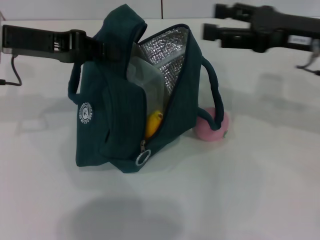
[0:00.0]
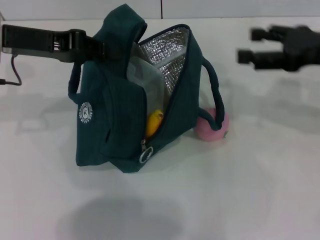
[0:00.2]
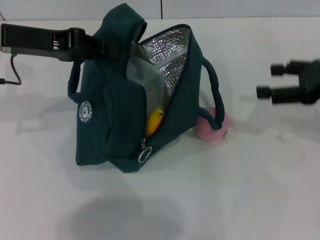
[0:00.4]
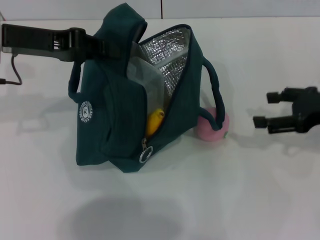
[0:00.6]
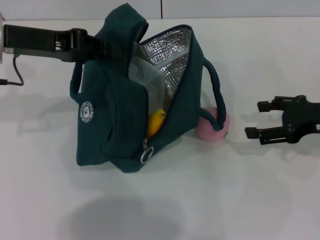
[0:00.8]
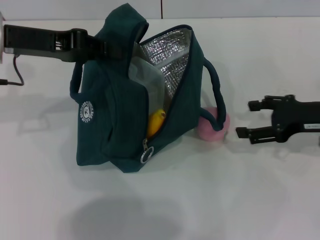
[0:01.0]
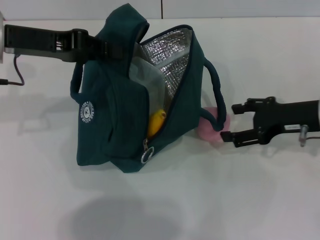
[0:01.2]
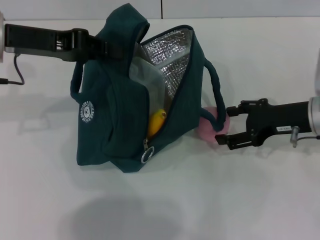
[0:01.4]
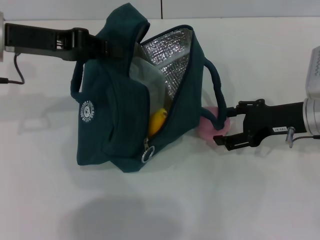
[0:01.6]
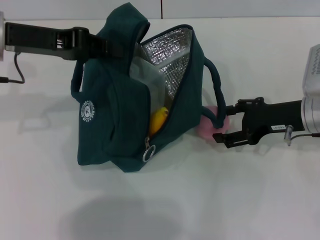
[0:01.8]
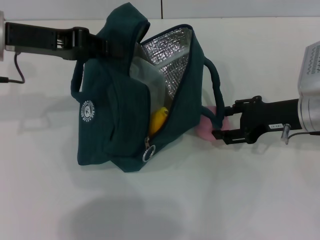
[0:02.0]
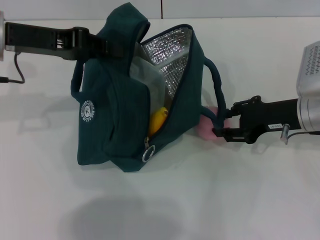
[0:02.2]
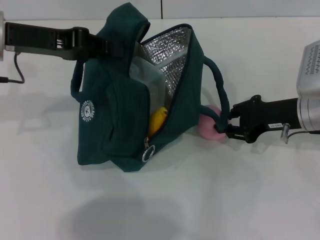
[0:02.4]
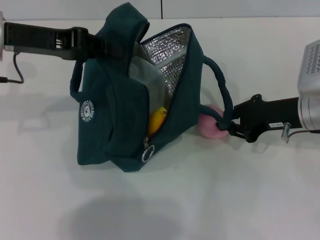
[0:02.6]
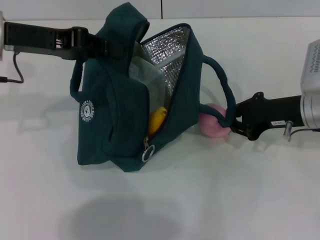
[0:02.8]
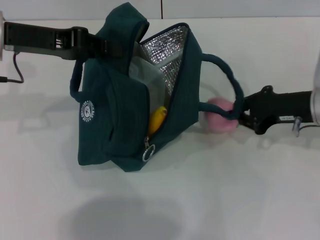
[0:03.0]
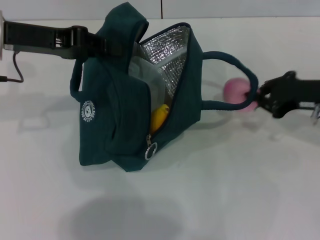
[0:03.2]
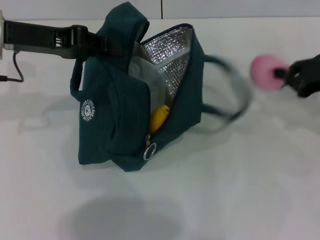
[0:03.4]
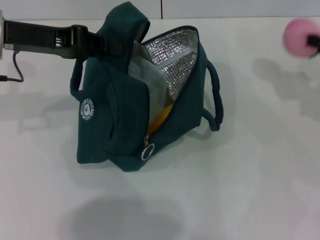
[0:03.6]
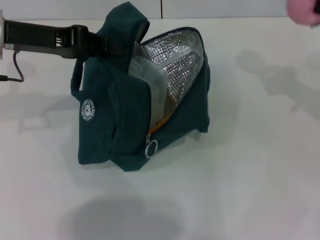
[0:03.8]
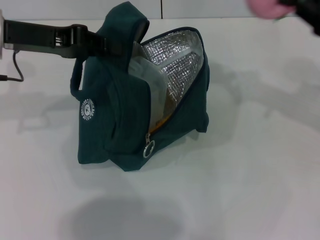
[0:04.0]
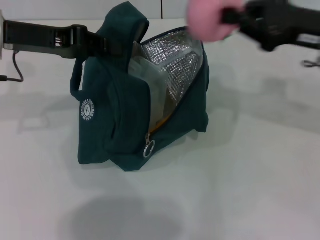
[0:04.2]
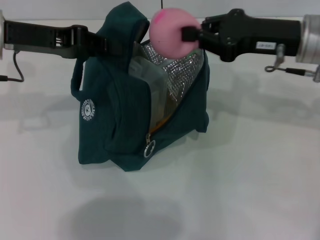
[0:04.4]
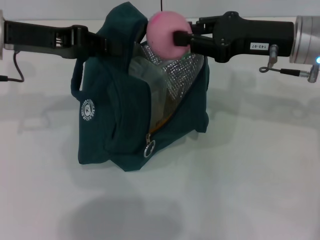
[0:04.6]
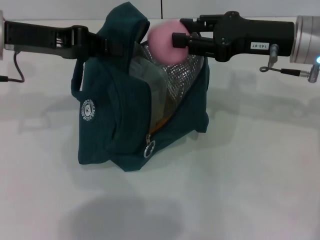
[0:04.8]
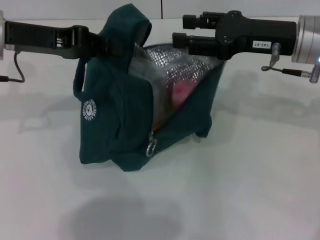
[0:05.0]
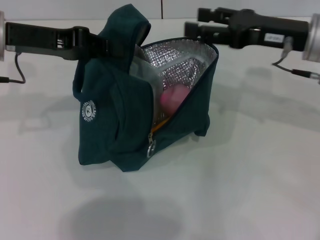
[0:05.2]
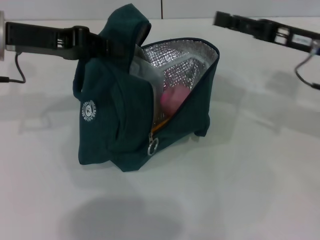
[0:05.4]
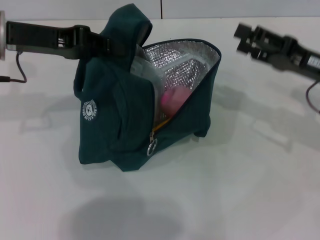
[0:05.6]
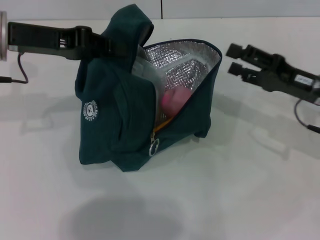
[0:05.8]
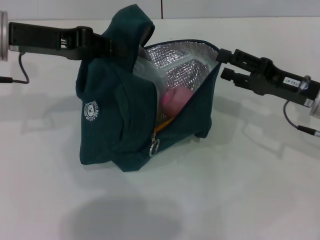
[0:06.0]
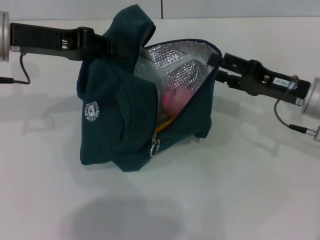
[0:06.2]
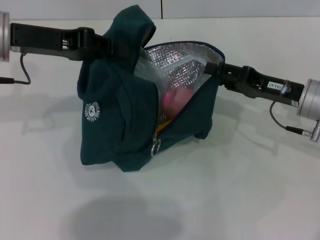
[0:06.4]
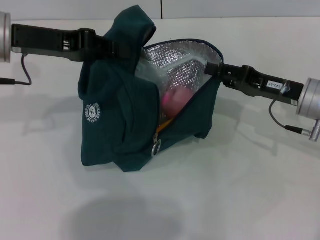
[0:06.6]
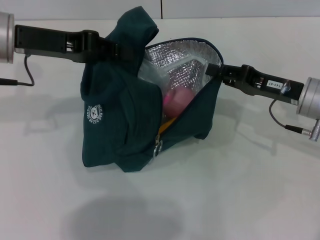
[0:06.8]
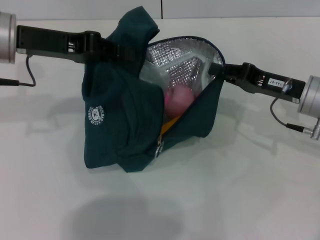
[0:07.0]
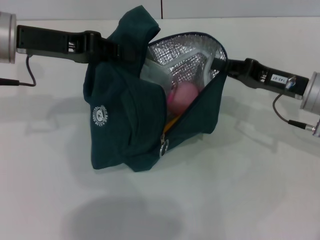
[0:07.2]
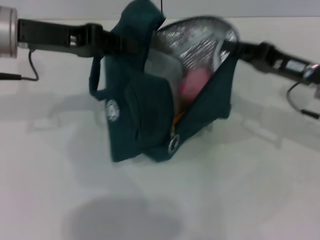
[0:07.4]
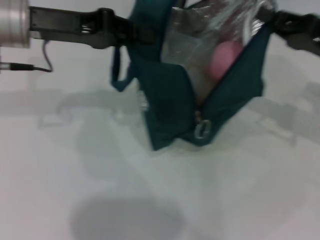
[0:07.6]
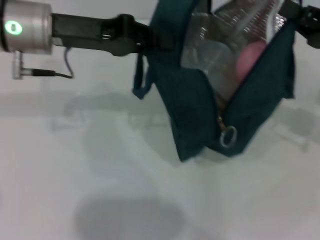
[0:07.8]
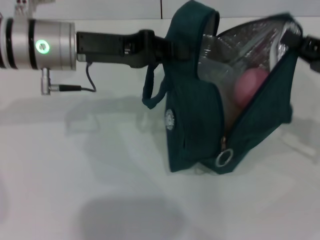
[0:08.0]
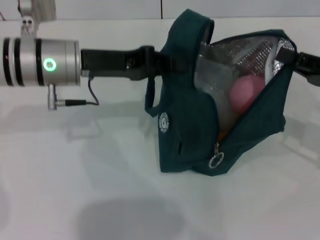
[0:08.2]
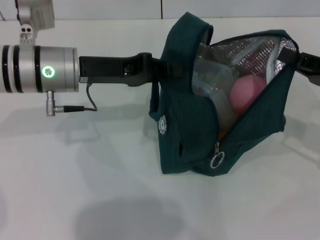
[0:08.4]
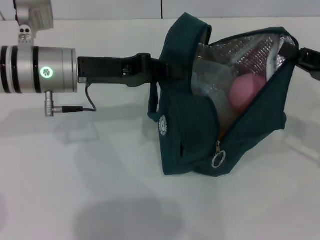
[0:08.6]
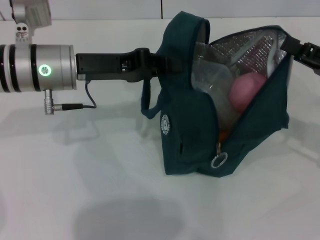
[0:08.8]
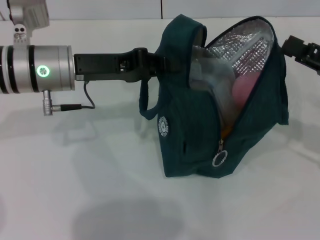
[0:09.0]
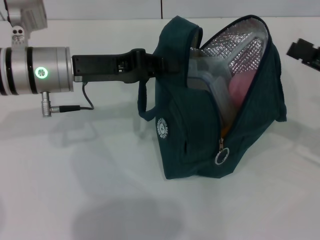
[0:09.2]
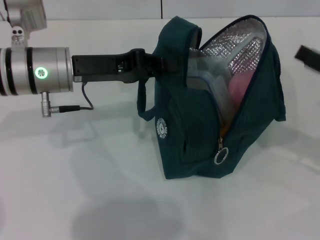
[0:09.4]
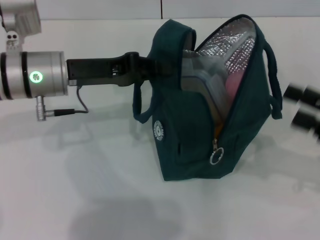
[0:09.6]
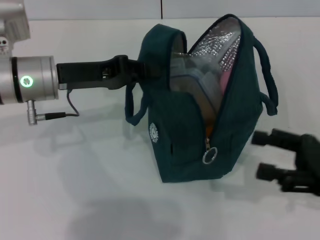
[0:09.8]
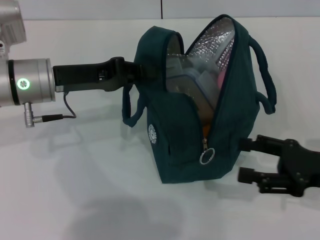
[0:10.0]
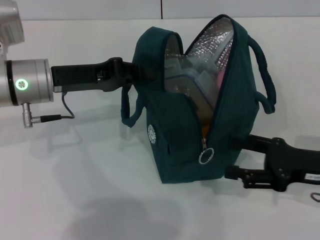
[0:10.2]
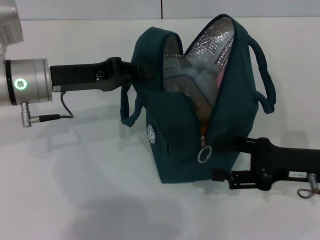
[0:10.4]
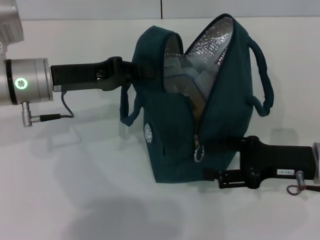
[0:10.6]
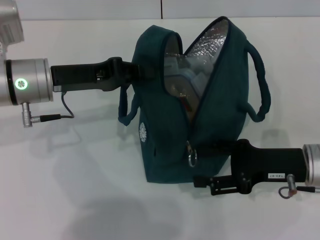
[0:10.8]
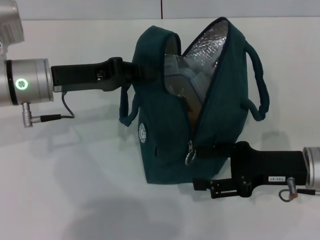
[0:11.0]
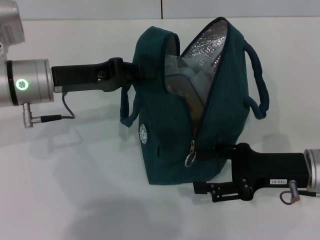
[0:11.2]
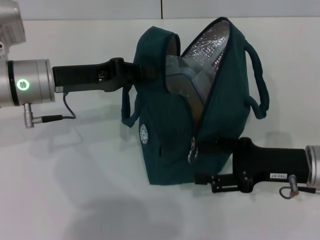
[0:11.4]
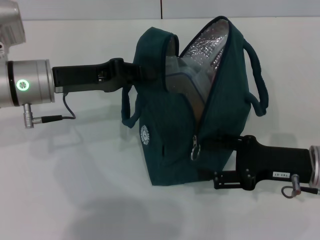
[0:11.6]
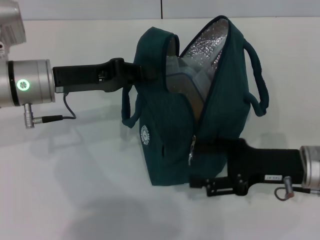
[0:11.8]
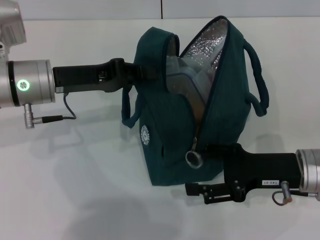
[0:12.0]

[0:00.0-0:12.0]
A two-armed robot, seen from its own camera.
Step, 0:00.0 to 0:02.6: Grab the peach with your right hand.
Step, 0:05.2 to 0:08.8: Hold the lunch bag with your right hand.
0:00.0 to 0:01.6: The right gripper travels downward by roughly 10 cm.
0:01.6 to 0:03.0: The right gripper closes up.
0:03.0 to 0:04.4: The right gripper goes about 10 cm upward, and goes to the right and returns, approximately 10 cm each way.
0:04.4 to 0:06.0: The right gripper heads downward, covering roughly 10 cm, and opens.
0:06.0 to 0:07.6: The right gripper shifts some 5 cm upward, and closes up.
0:07.6 to 0:09.0: The left gripper heads downward, covering roughly 5 cm. Meanwhile the right gripper shifts by roughly 5 cm.
0:09.0 to 0:10.4: The right gripper heads to the left and downward, covering some 10 cm, and opens up.
0:10.4 to 0:12.0: There are only small adjustments of the grippers.

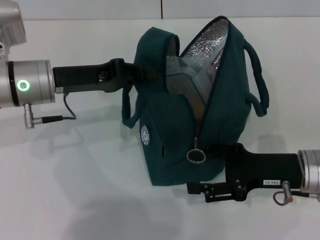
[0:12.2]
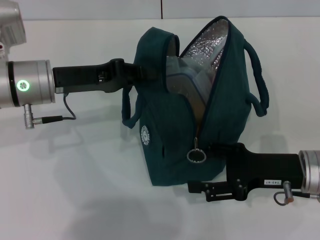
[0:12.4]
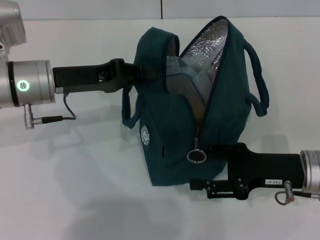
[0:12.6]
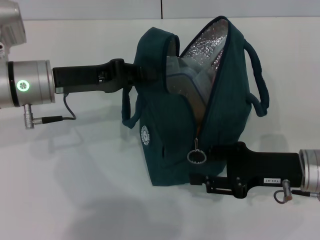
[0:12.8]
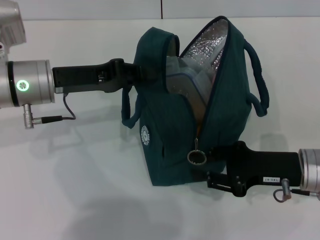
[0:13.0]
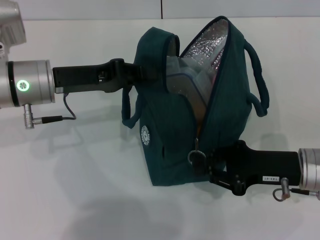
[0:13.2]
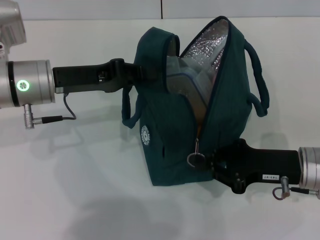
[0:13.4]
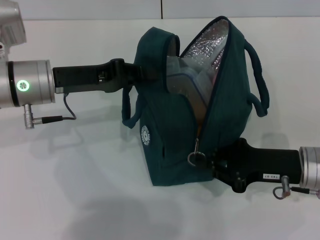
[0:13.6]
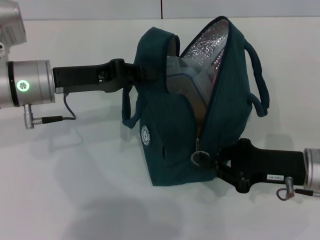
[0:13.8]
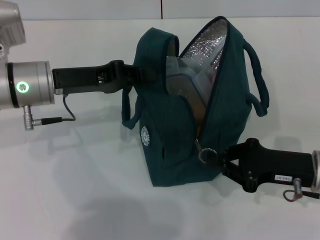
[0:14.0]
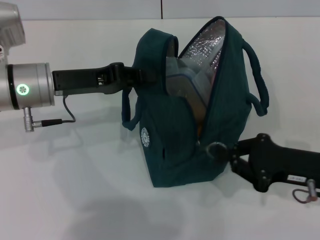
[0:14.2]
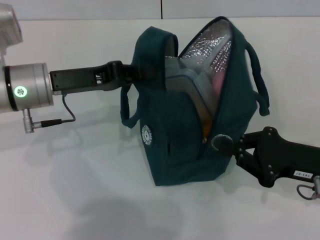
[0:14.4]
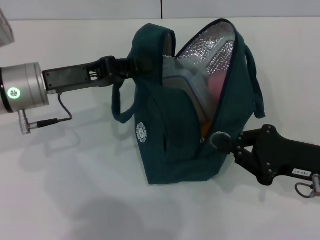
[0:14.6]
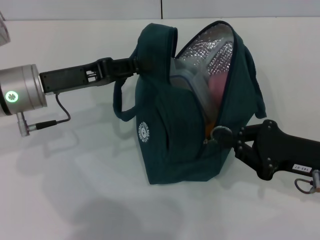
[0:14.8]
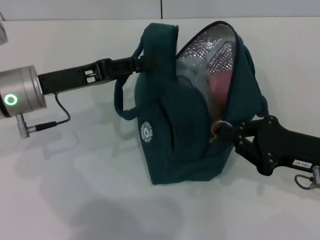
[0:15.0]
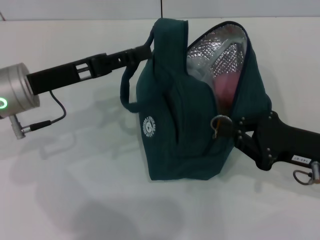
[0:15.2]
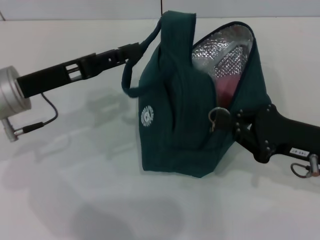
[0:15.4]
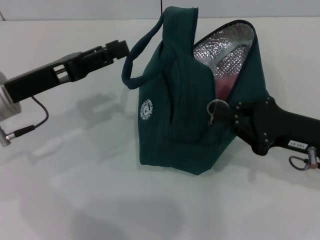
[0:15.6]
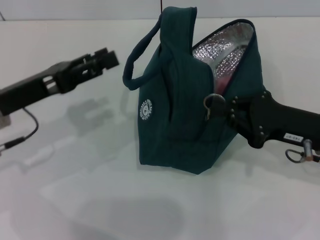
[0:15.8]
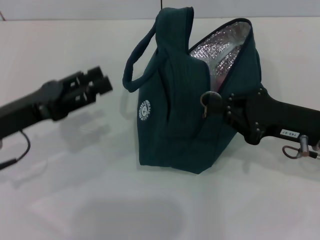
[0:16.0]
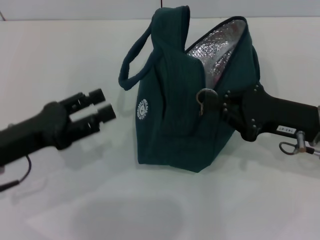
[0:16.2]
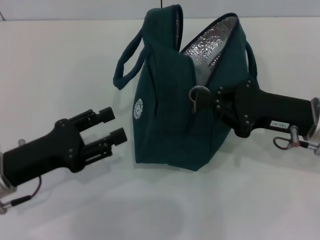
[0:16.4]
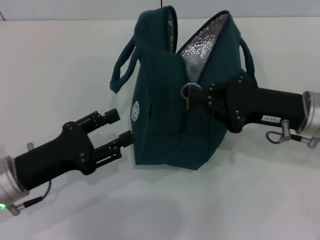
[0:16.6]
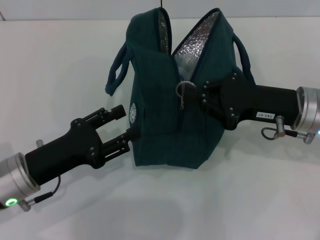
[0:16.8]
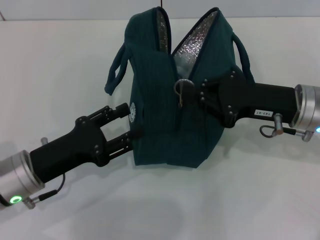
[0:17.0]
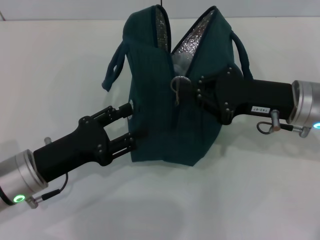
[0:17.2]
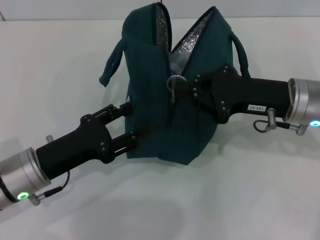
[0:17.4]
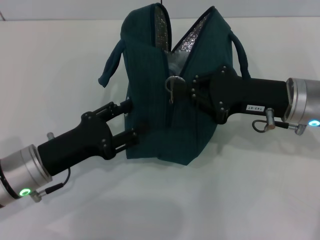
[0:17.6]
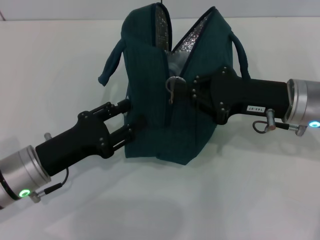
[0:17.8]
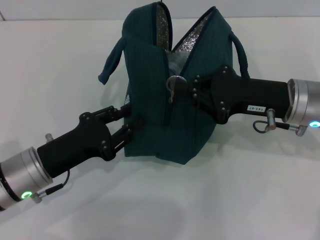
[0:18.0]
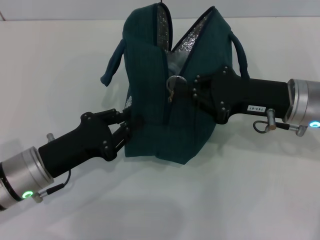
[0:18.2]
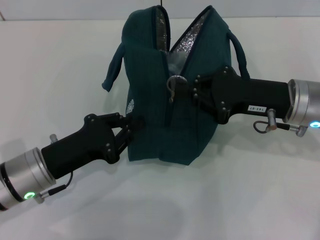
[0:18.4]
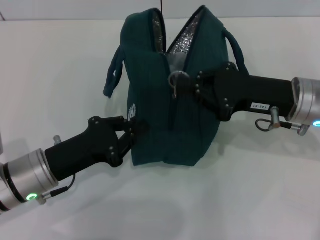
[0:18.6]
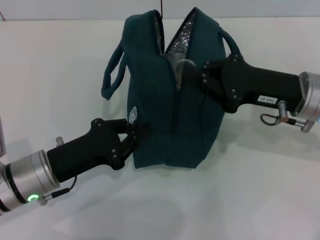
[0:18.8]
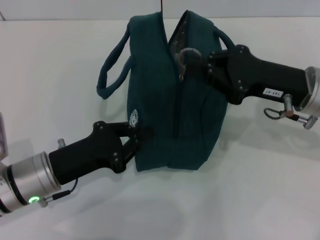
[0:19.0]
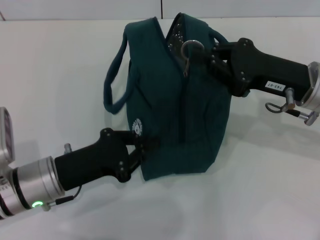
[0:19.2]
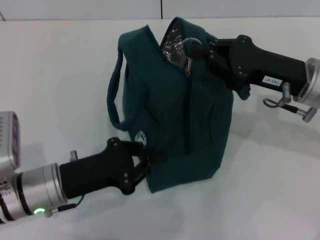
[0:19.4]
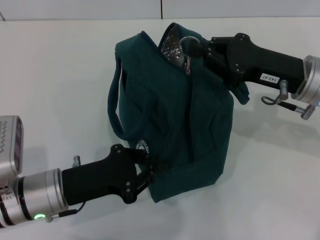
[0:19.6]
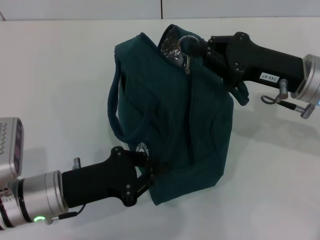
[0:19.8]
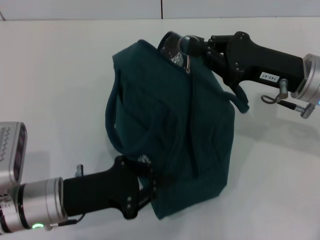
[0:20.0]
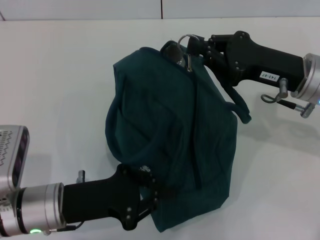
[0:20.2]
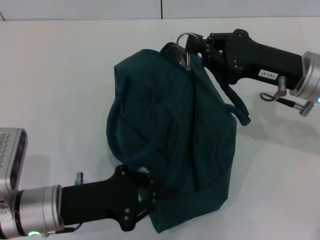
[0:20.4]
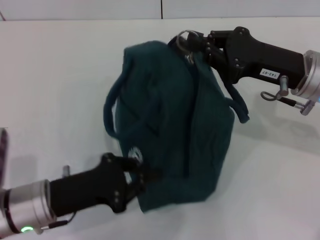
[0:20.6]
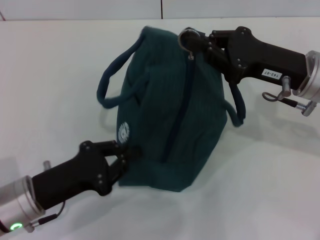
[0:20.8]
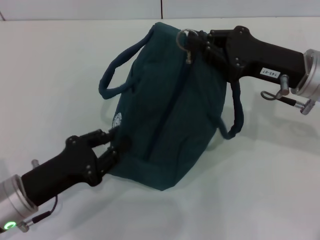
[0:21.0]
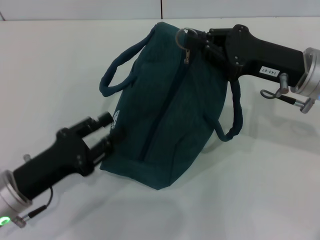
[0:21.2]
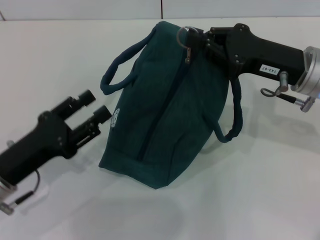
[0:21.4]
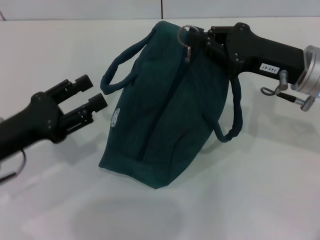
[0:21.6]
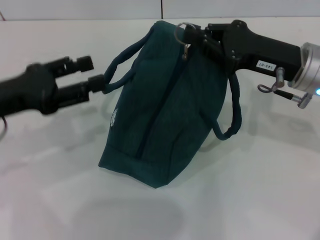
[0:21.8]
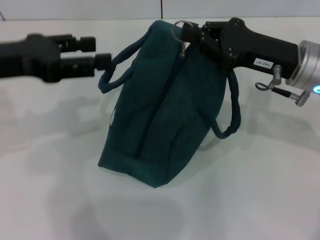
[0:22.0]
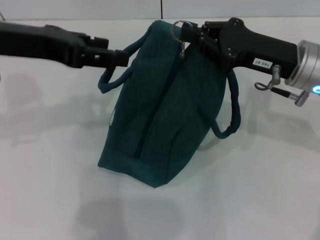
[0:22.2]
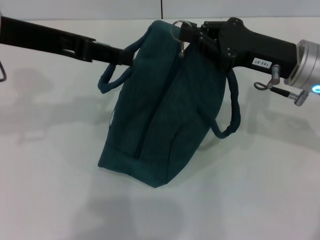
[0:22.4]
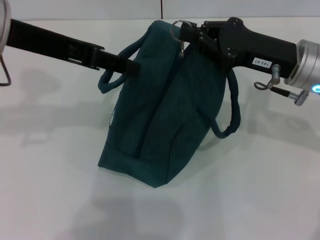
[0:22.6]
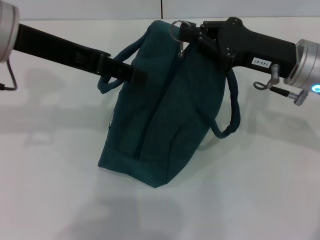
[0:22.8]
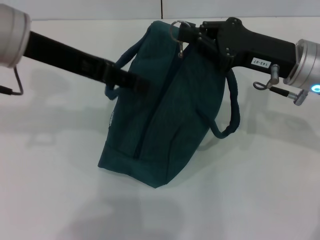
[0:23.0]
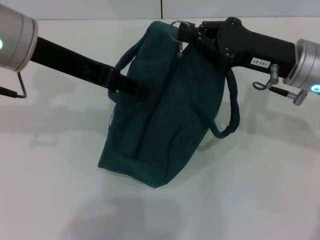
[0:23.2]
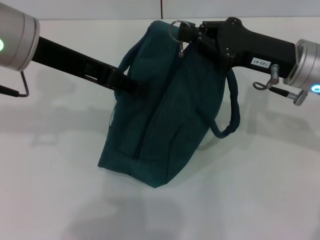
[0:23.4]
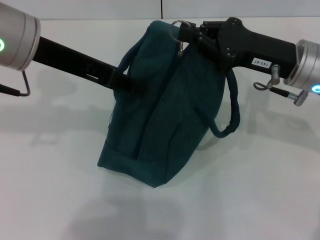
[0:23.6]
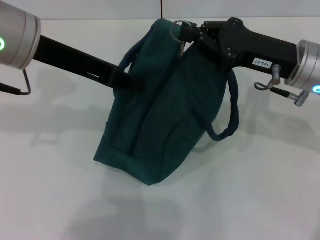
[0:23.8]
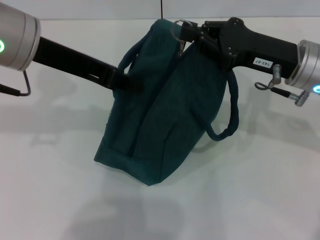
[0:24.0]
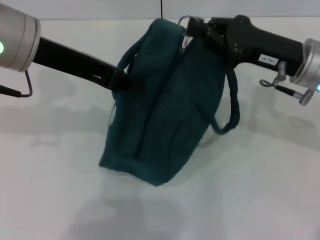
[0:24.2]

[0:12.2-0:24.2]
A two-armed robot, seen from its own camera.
Step, 0:12.2 to 0:15.0: Hold the lunch bag with your left hand.
0:12.2 to 0:13.8: The right gripper closes its fingers.
0:13.8 to 0:15.2: The left gripper opens.
0:15.2 to 0:16.6: The left gripper travels backward and downward by roughly 10 cm; the right gripper is displaced forward by about 5 cm.
0:16.6 to 0:18.2: The left gripper closes its fingers.
0:18.2 to 0:19.8: The left gripper closes its fingers.
0:21.2 to 0:22.6: The left gripper is displaced upward and forward by some 25 cm, and opens its fingers.
0:22.6 to 0:24.2: The left gripper closes up.
